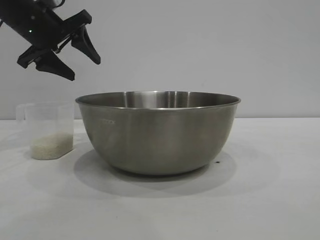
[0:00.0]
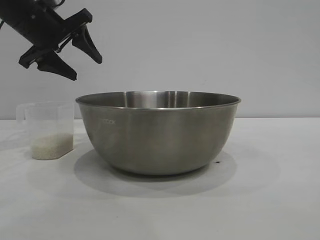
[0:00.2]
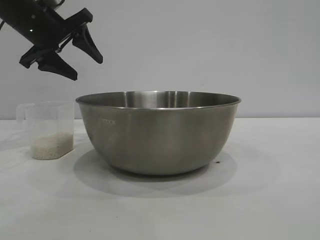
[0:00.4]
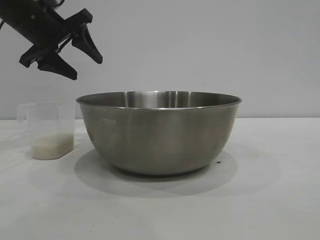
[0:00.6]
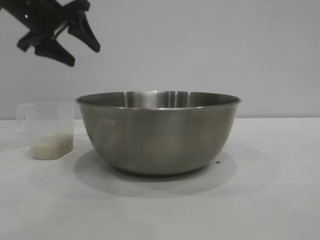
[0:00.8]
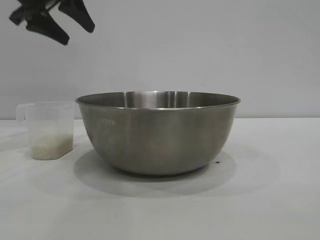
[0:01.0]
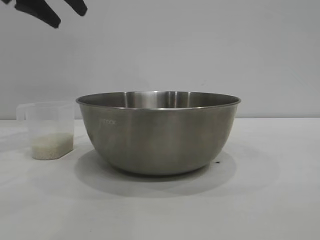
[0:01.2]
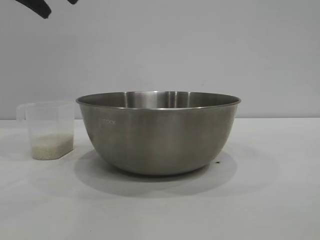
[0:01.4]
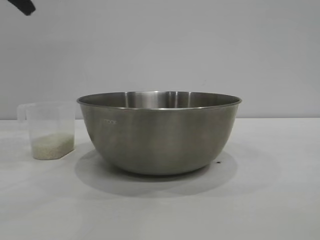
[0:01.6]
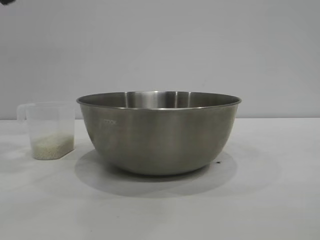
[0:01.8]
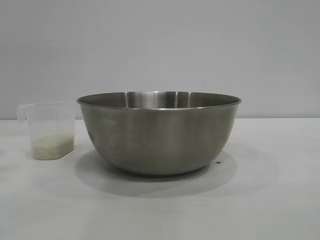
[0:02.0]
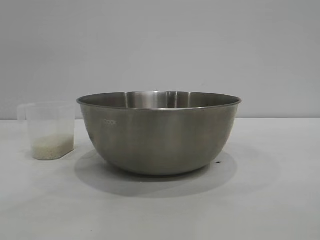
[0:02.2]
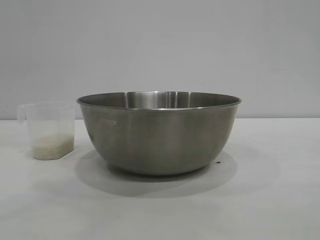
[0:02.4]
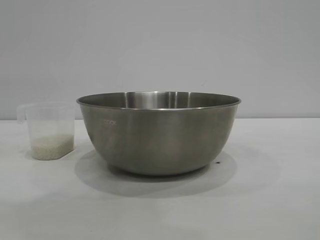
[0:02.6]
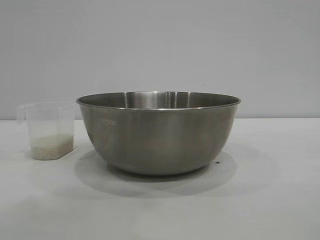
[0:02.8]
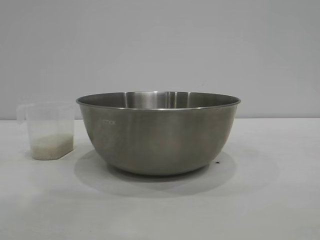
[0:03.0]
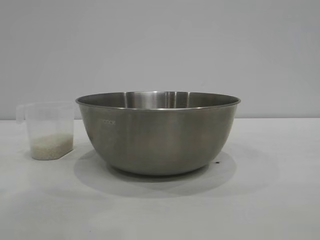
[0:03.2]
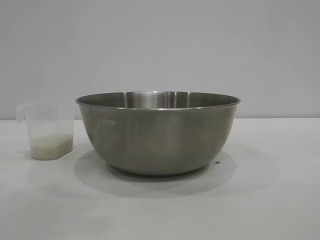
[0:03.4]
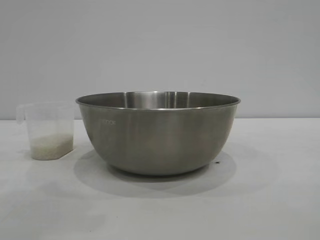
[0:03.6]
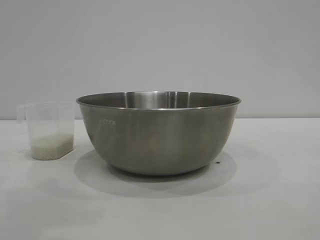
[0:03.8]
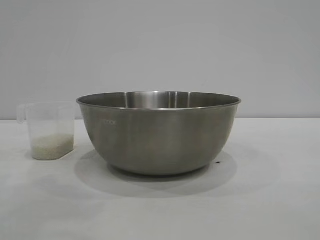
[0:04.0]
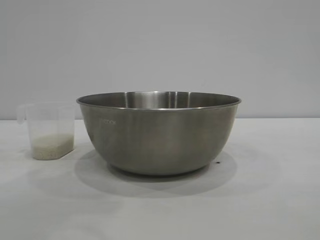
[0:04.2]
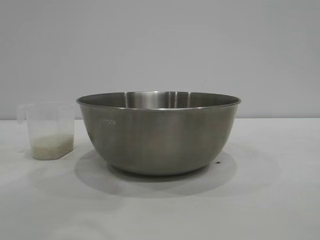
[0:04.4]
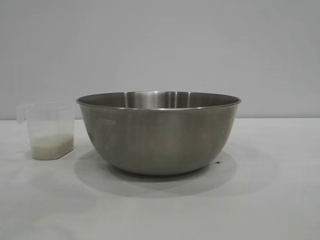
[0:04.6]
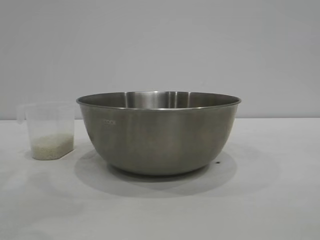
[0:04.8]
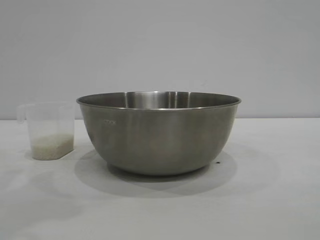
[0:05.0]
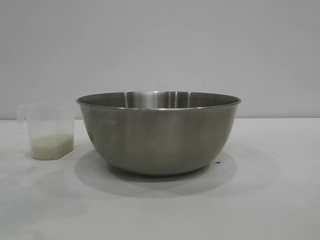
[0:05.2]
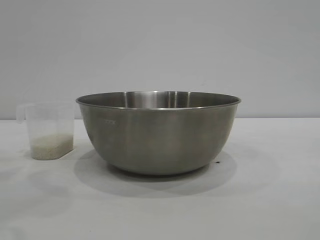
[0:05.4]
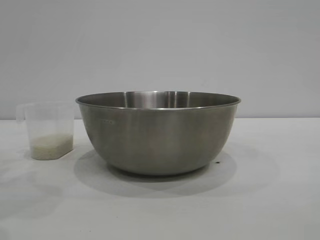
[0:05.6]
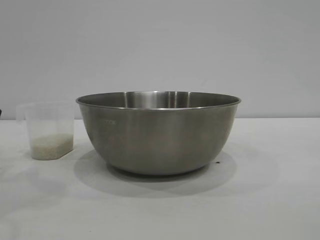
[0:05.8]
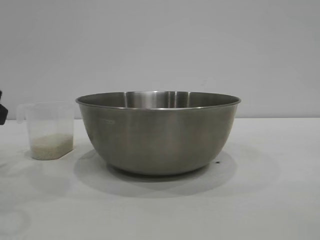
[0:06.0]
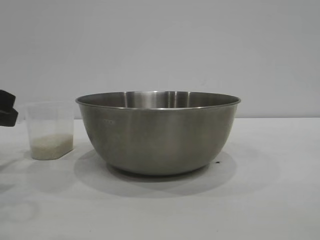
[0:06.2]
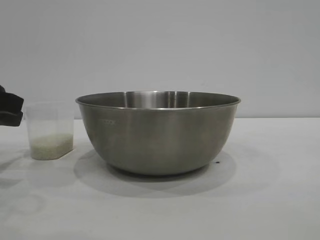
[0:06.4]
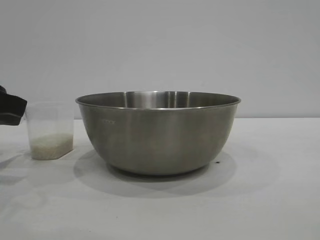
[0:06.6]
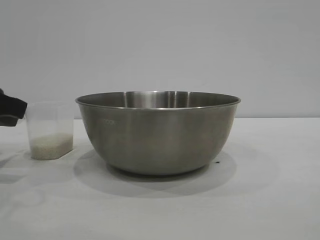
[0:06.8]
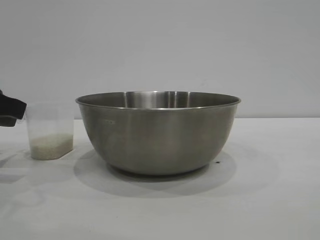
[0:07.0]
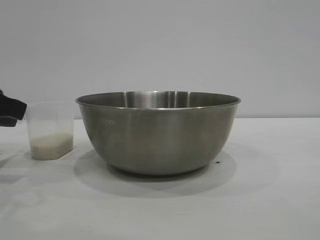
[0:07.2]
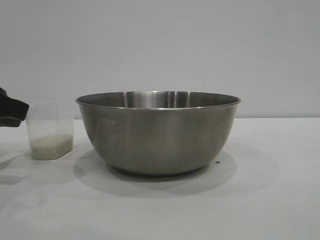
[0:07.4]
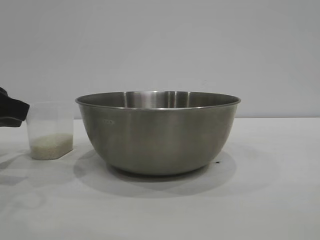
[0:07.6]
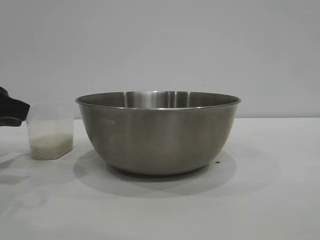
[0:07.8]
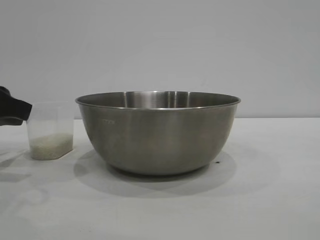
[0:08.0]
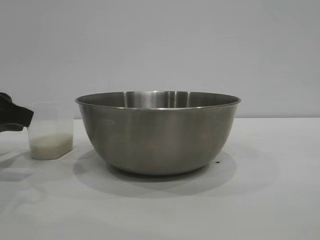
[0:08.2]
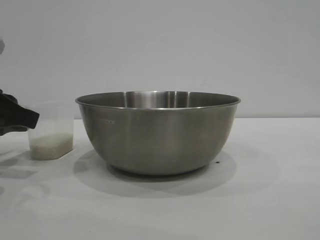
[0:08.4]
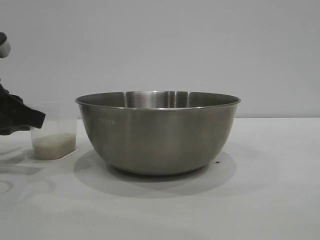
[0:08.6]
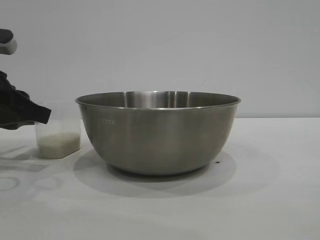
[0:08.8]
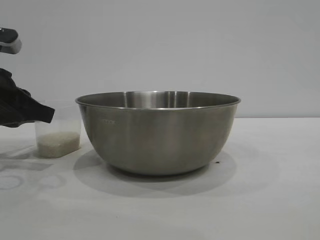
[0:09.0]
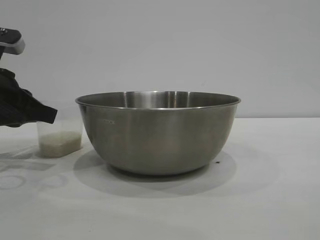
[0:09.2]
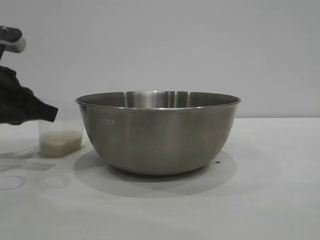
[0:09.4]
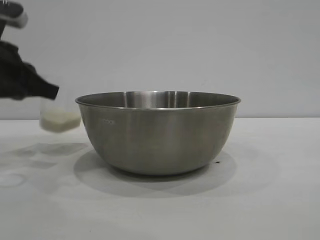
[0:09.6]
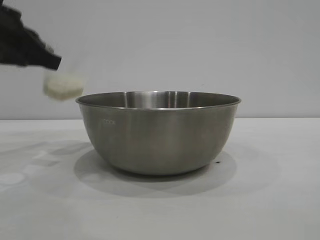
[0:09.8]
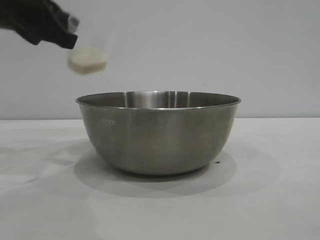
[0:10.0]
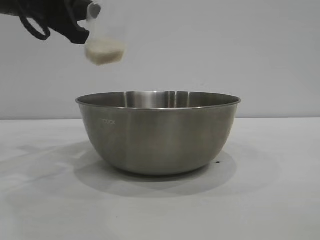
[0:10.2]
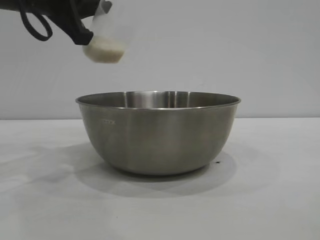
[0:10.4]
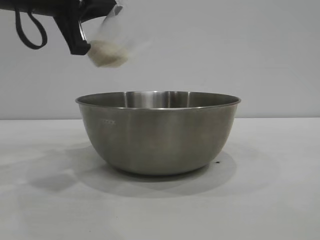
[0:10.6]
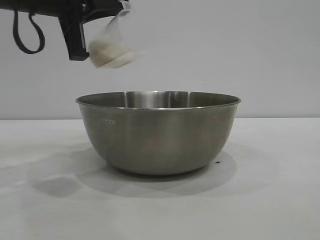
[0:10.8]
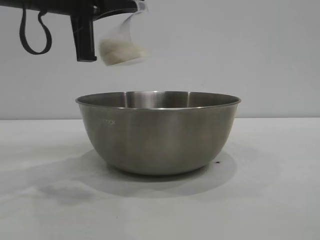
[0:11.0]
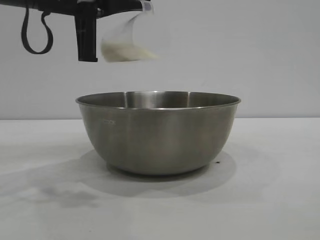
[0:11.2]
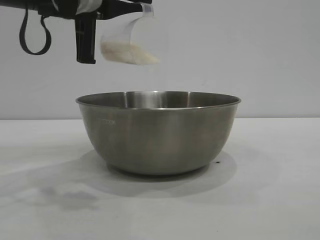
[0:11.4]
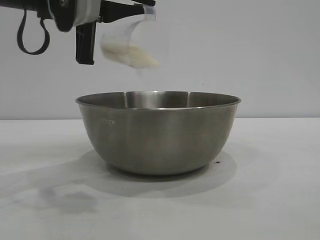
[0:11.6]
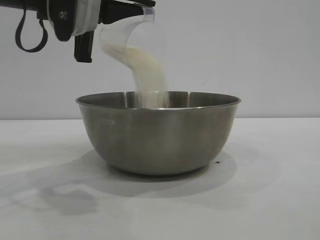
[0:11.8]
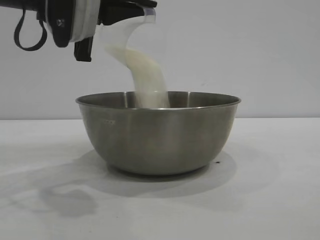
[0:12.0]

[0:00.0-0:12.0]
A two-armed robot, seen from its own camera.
Task of the whole recording: the right gripper grasp the rice container and place it in the center of the table, the left gripper grasp the rice scoop and pour the rice into the rice container.
Step, 0:00.0 to 0:09.8: Pick up the cup with rice in it with the left gripper.

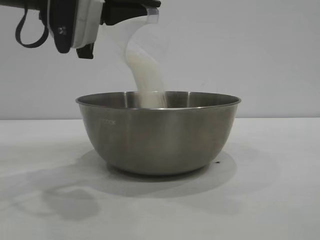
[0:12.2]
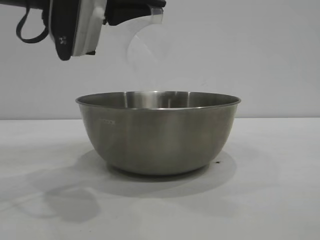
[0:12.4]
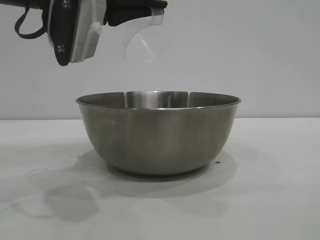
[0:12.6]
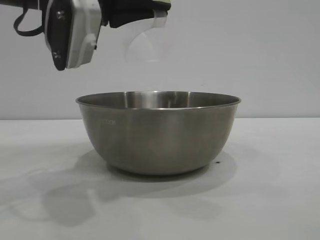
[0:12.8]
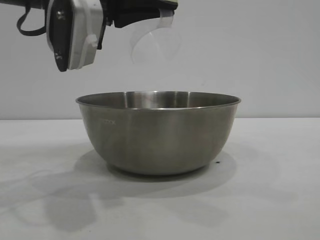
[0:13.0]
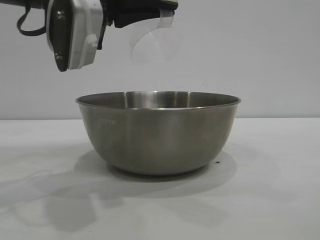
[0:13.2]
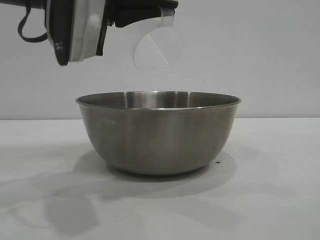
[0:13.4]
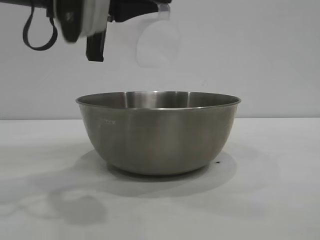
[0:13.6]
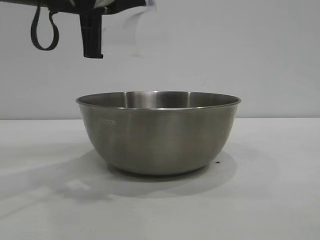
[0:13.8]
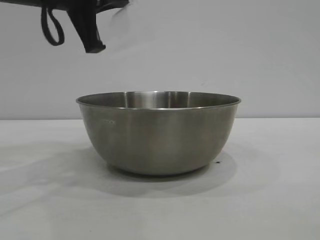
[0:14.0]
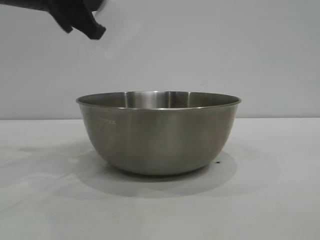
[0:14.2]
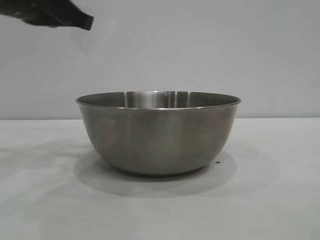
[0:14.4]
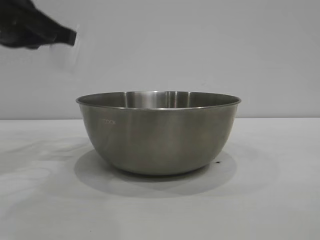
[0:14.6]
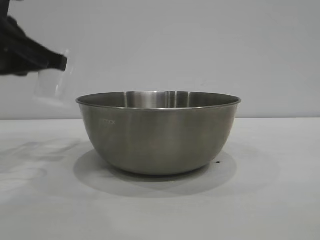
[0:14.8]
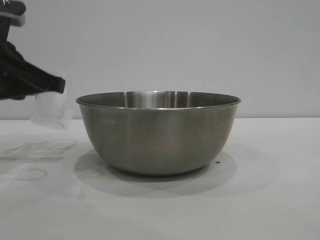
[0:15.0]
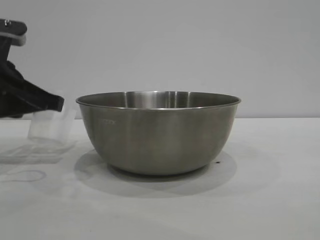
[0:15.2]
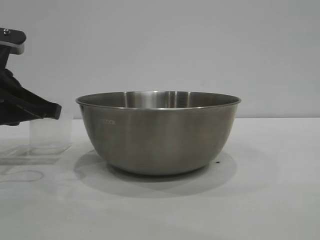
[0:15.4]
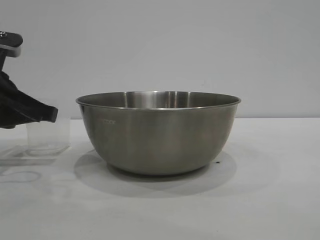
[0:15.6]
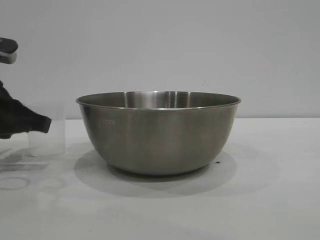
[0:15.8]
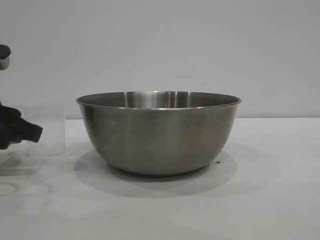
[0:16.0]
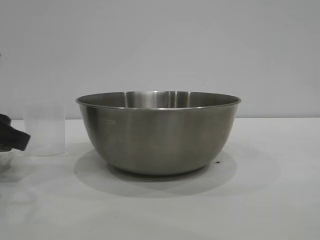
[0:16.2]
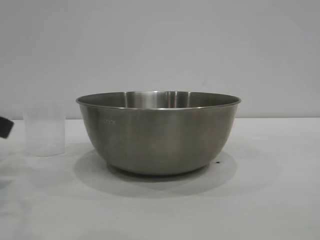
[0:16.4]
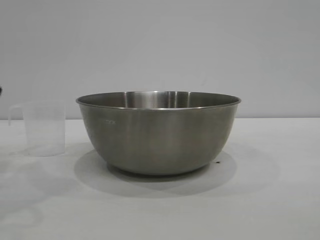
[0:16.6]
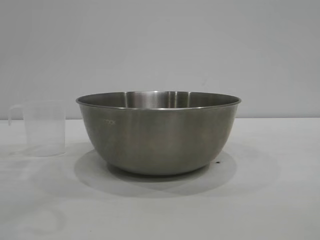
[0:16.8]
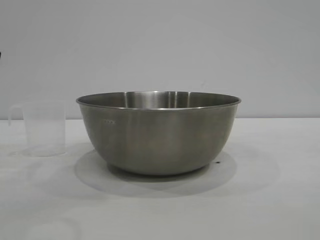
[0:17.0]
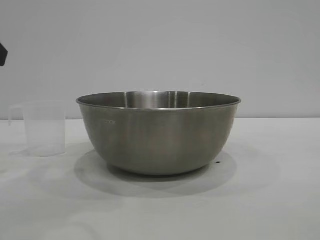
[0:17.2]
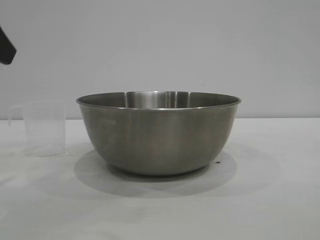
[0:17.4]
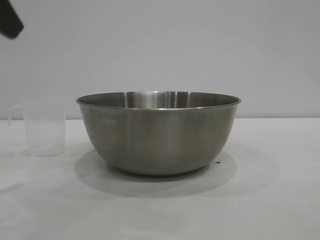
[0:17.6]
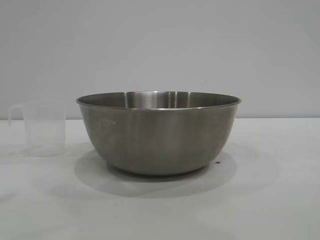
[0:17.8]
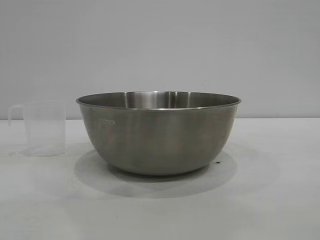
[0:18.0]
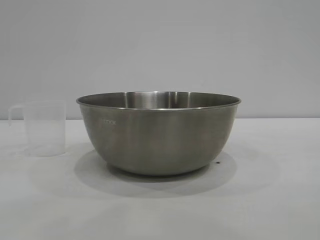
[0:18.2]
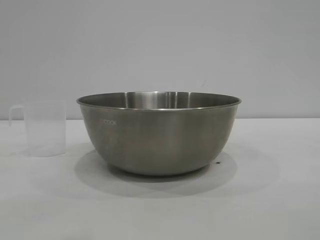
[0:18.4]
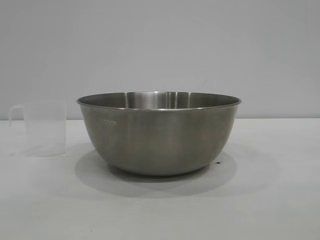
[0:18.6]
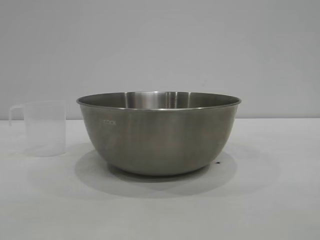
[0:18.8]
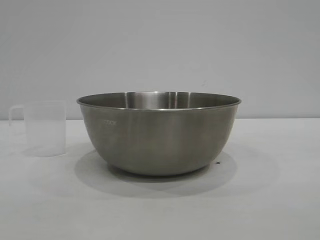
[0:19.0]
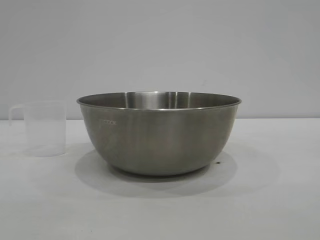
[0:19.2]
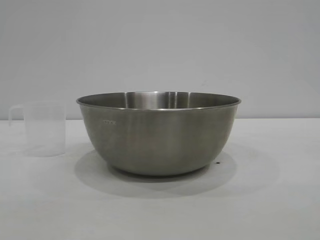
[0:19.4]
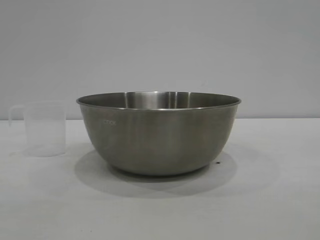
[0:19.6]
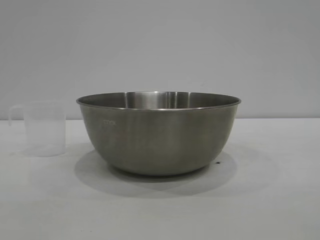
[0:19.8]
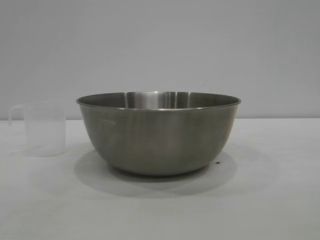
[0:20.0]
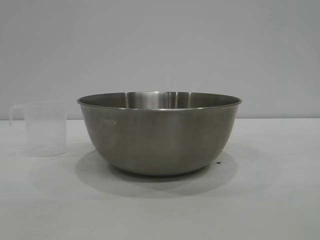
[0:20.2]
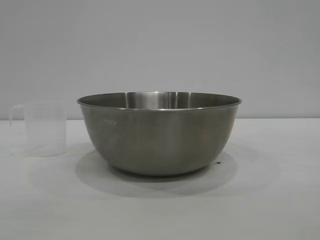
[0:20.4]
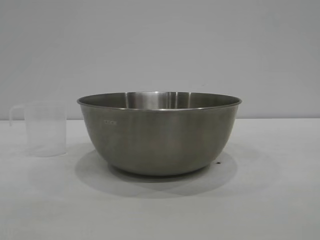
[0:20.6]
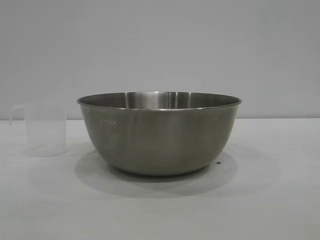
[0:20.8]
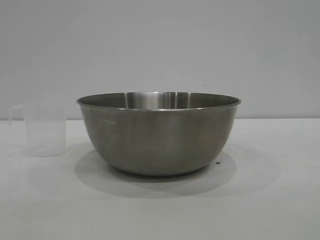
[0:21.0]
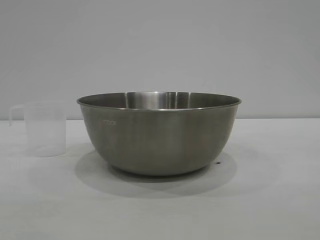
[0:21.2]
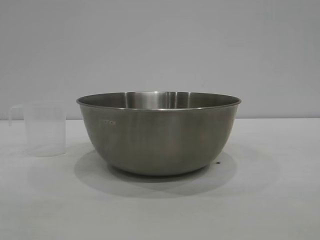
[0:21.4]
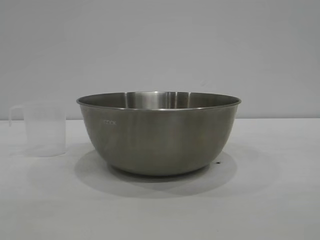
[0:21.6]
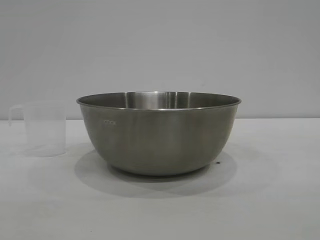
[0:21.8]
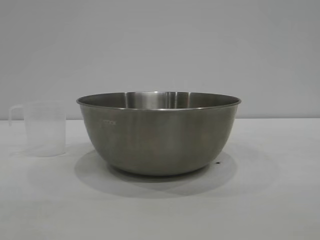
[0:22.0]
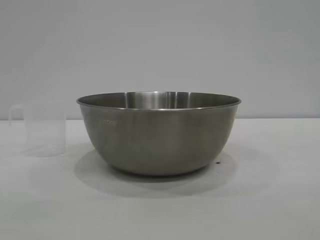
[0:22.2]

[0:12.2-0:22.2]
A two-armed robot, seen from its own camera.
Task of the whole recording: the right gripper grasp the rice container and place it in the center of the table, the left gripper grasp the rice scoop and pour the rice into the rice container.
Step, 0:13.4 to 0:16.0: Place the cup on the table with the left gripper.
